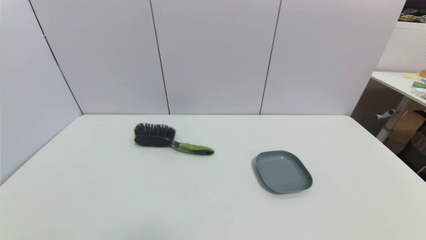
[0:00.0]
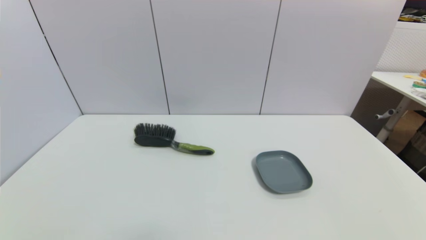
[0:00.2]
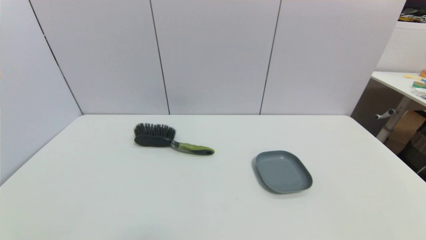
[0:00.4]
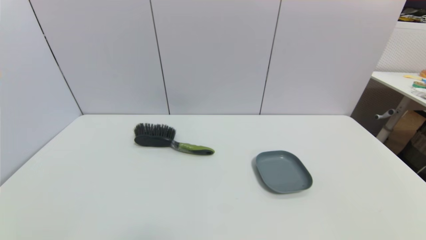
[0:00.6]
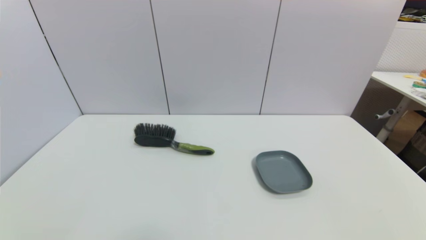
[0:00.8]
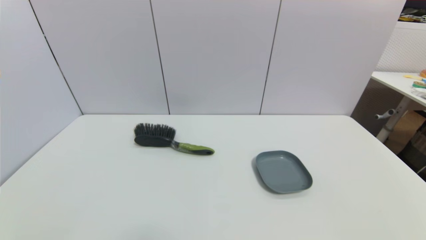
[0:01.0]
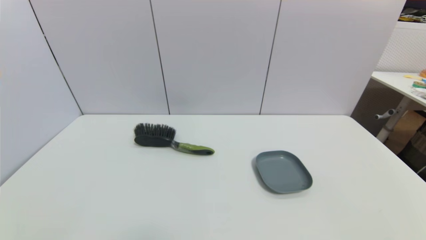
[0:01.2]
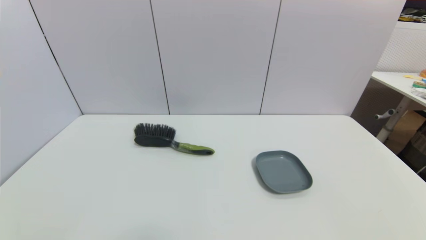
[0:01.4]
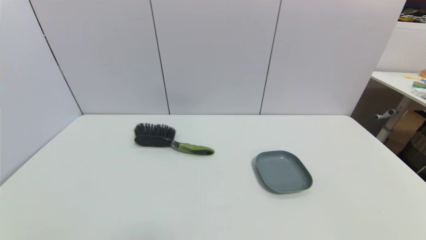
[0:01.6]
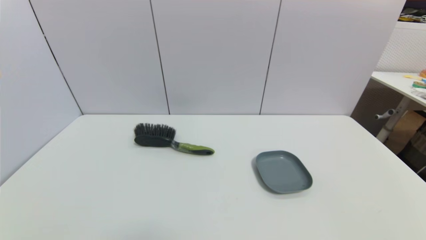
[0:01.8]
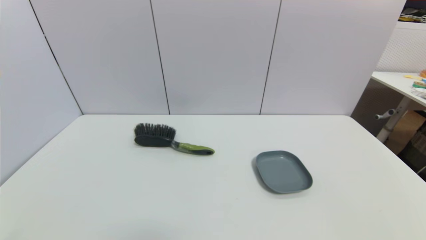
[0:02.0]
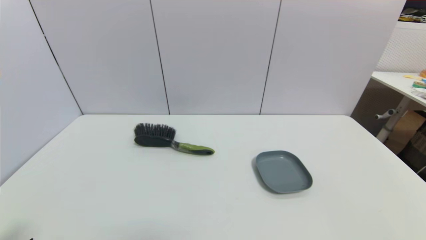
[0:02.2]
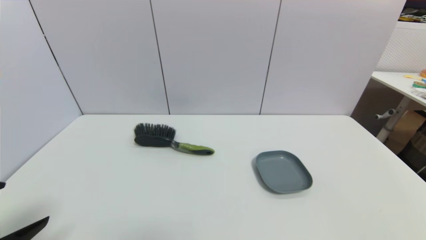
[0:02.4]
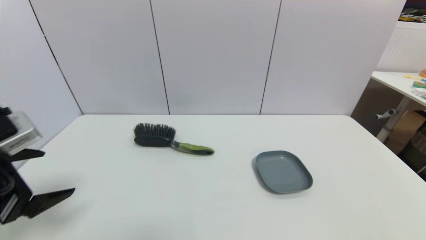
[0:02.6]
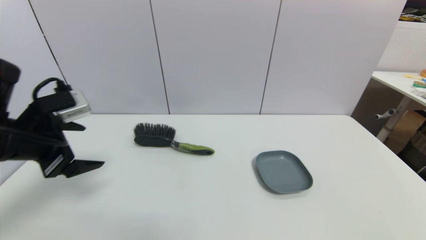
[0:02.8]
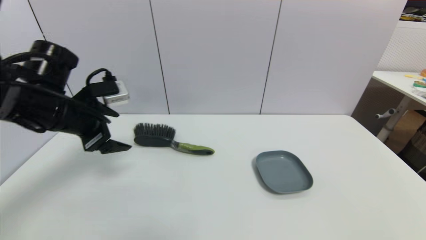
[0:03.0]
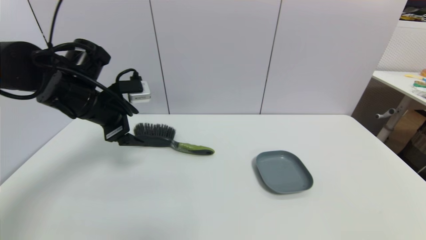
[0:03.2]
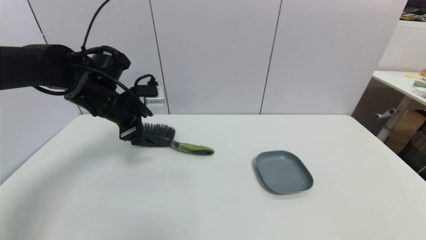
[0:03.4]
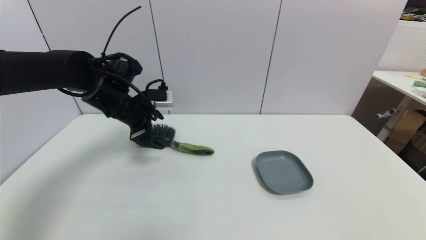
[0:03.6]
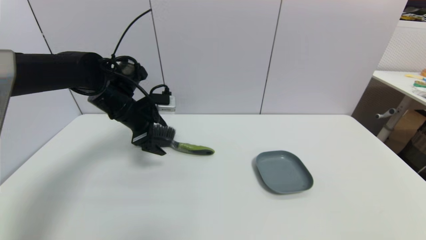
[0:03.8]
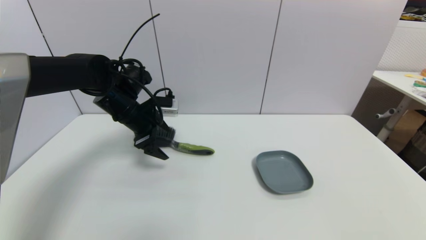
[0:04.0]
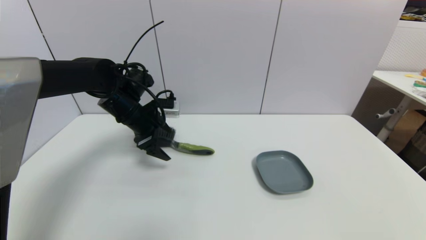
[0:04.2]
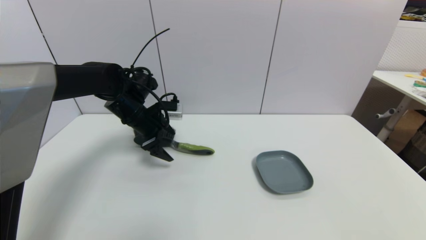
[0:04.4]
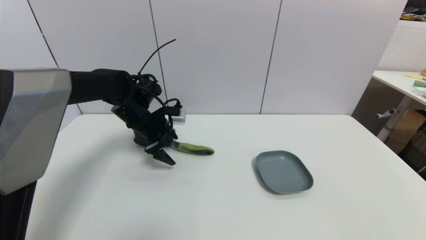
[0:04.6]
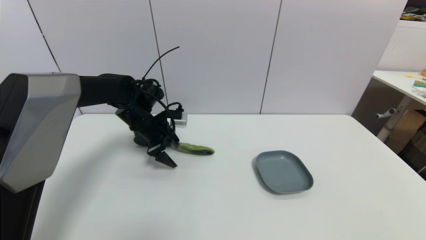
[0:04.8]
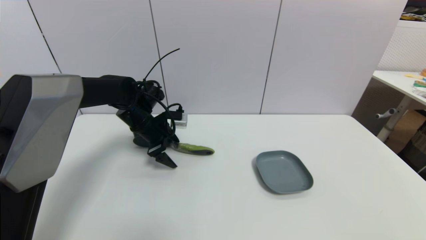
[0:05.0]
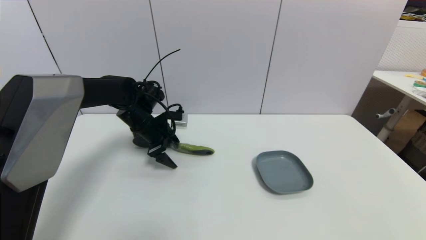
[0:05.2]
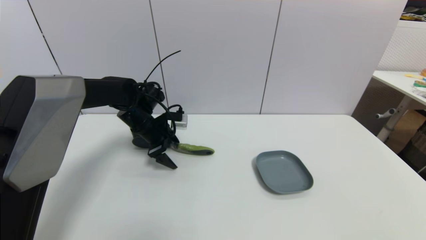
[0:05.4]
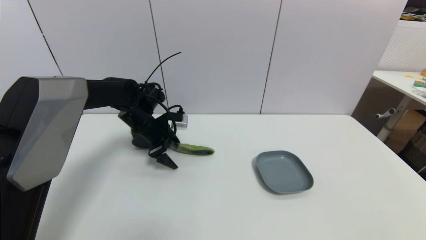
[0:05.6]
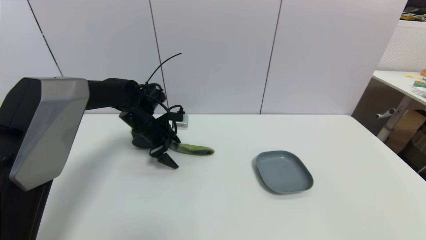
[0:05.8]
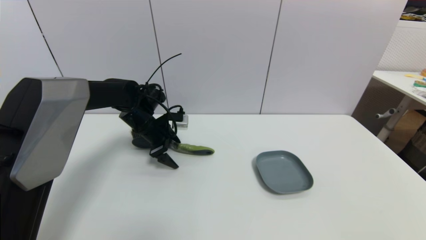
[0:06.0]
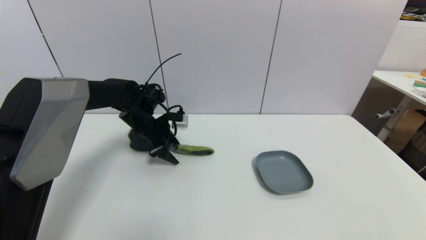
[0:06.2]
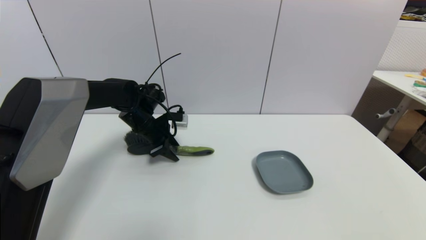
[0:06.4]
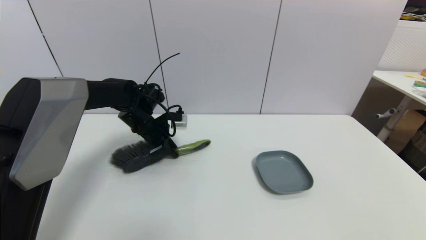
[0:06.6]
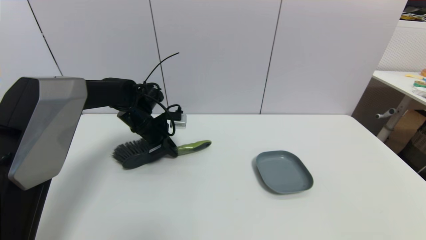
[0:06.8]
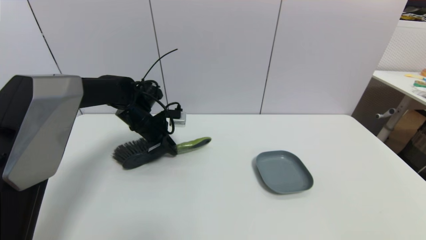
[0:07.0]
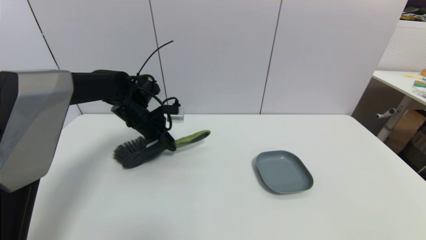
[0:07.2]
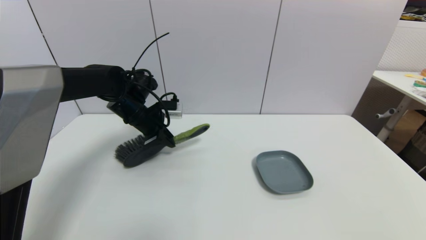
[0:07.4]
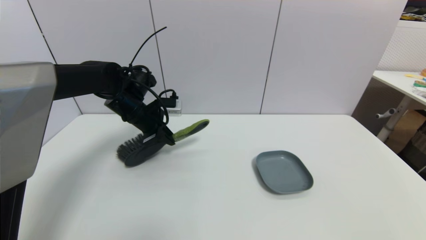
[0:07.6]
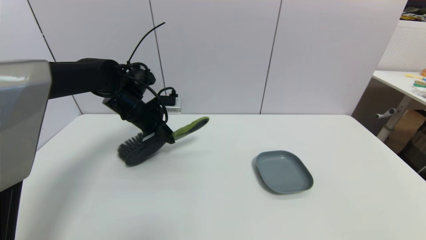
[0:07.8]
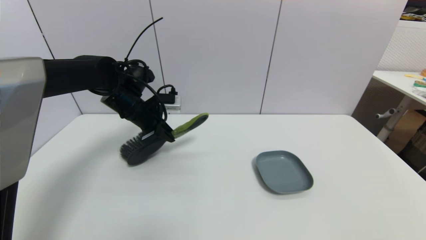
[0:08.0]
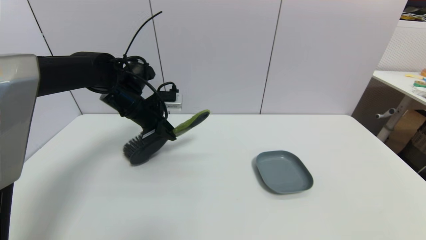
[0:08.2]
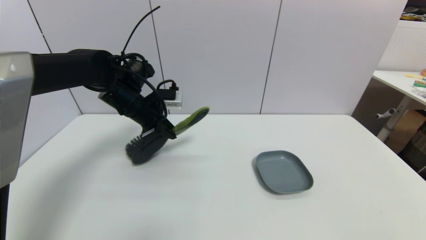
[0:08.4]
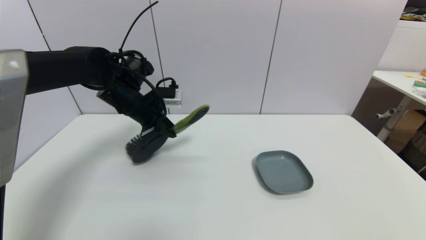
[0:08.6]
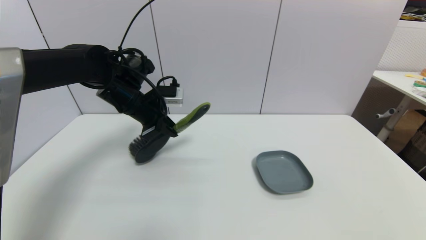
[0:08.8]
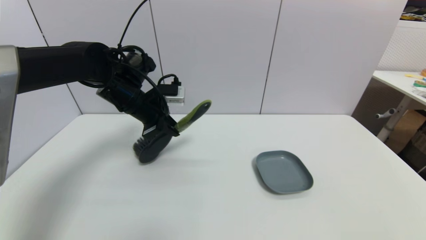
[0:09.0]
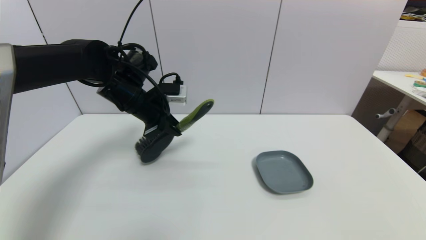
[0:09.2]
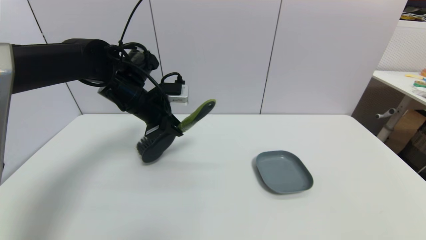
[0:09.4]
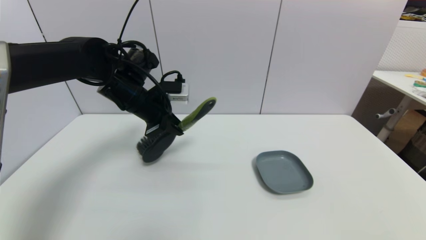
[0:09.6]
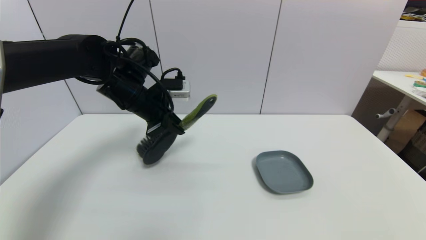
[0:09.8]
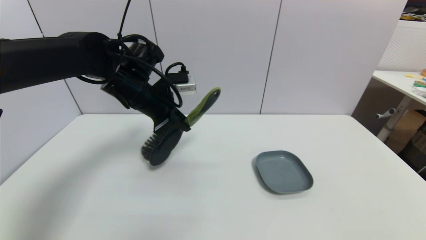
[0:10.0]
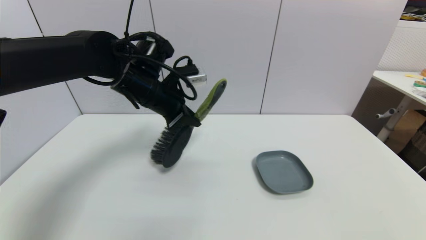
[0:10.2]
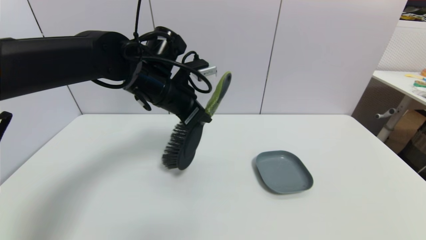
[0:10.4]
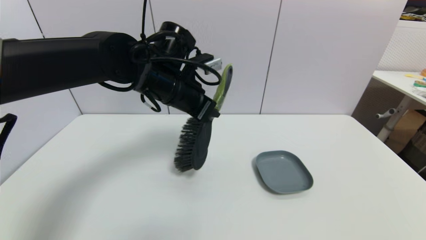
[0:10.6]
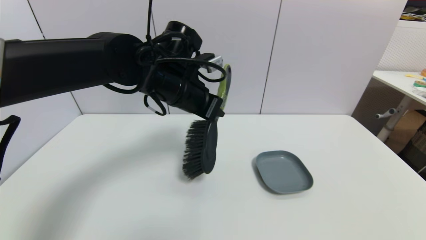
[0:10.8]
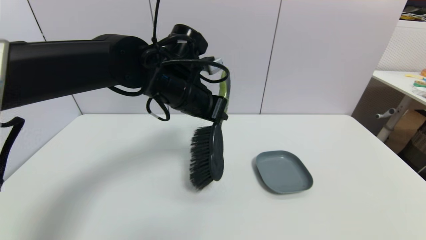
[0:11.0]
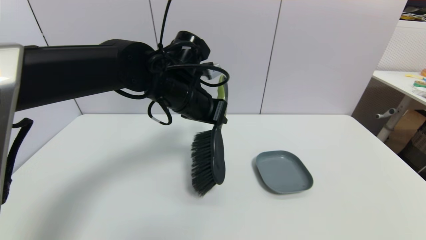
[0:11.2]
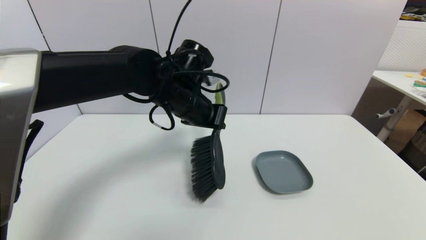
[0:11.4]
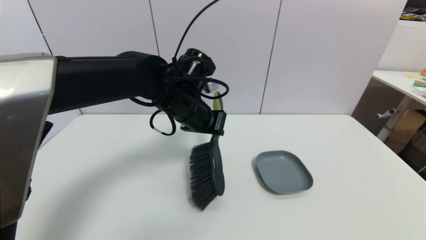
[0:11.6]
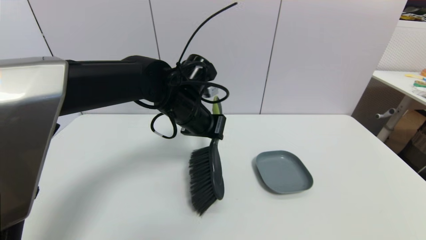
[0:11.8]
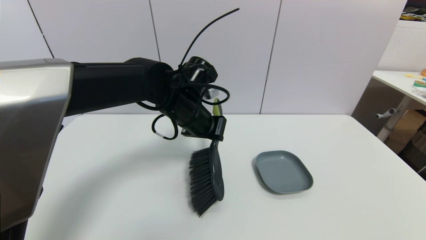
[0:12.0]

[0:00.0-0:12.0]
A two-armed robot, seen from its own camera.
Task of the whole recording: put the brush in the designated position.
Step, 0:02.4 to 0:06.8: Grasp the brush with left gripper.
0:00.0 to 0:01.6: Neither gripper changes place.
0:01.6 to 0:03.0: The left gripper moves forward and upward, approximately 35 cm.
0:03.0 to 0:04.4: The left gripper shifts roughly 15 cm forward, downward and to the right.
0:04.4 to 0:06.0: There are only small adjustments of the grippers.
0:06.0 to 0:07.6: The left gripper shifts roughly 5 cm upward, and closes its fingers.
0:07.6 to 0:09.0: The left gripper ends up some 5 cm from where it was.
0:09.0 to 0:10.4: The left gripper shifts approximately 10 cm to the right.
0:10.4 to 0:12.0: The left gripper ends up approximately 5 cm from where it was.

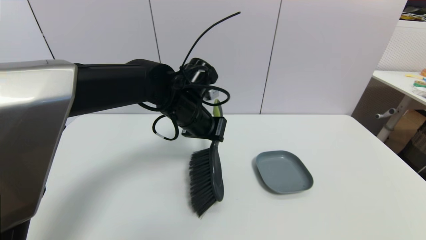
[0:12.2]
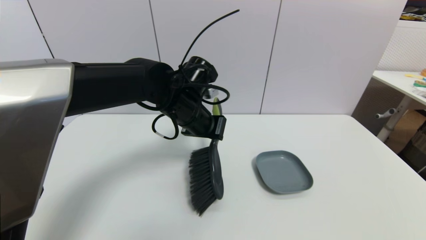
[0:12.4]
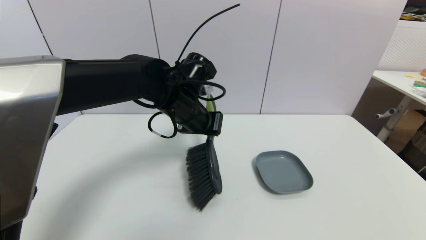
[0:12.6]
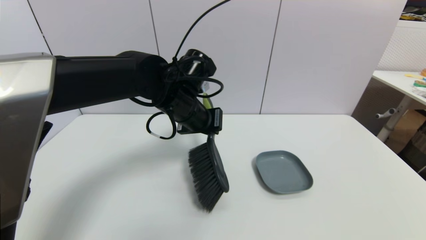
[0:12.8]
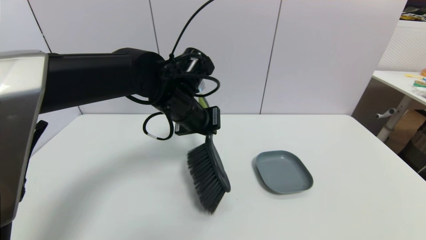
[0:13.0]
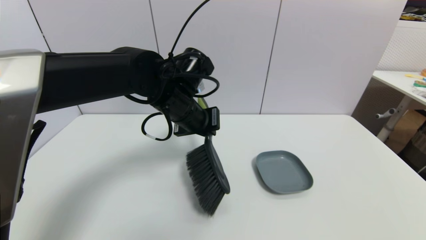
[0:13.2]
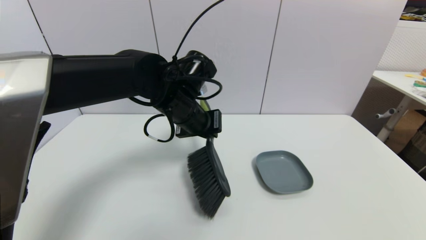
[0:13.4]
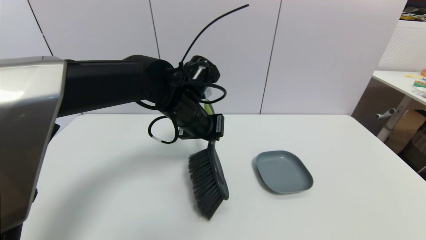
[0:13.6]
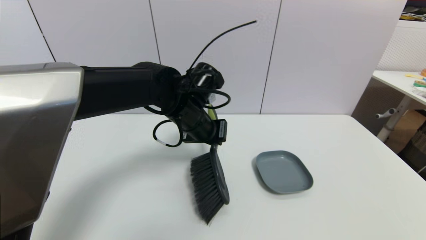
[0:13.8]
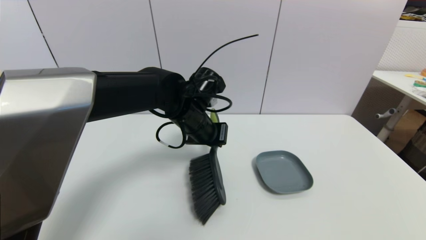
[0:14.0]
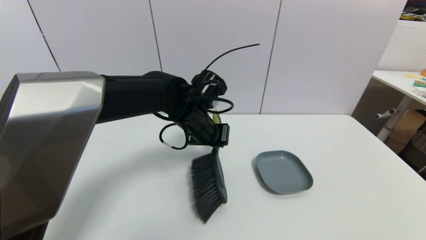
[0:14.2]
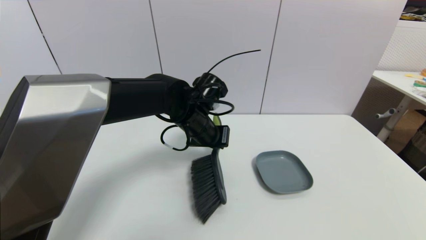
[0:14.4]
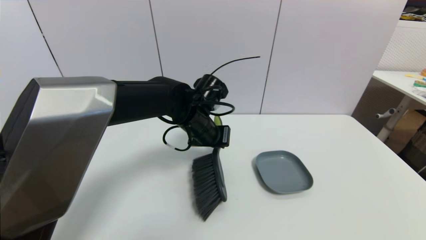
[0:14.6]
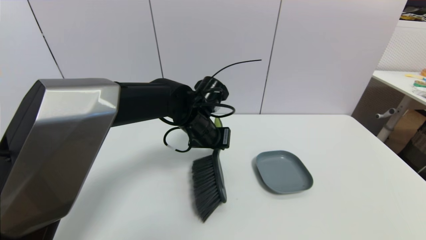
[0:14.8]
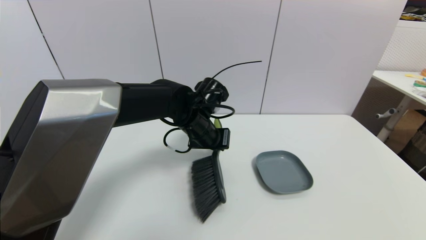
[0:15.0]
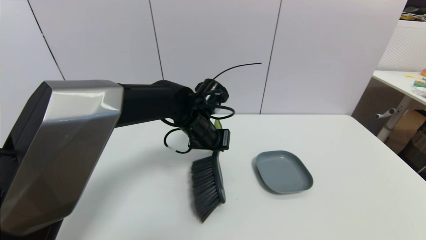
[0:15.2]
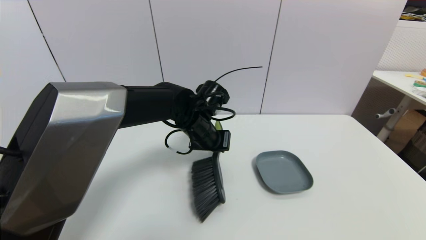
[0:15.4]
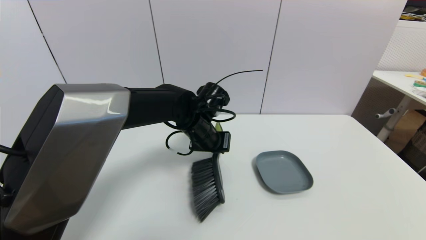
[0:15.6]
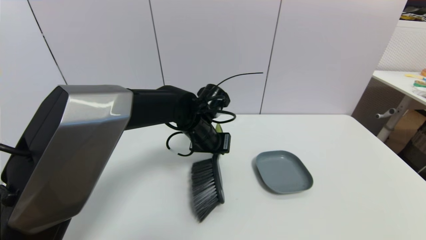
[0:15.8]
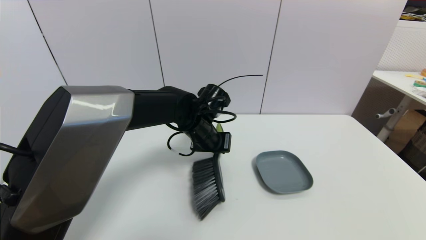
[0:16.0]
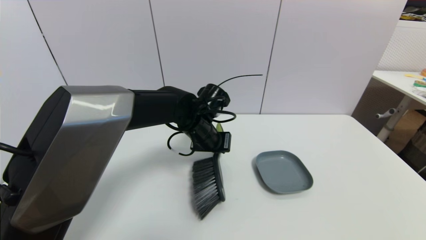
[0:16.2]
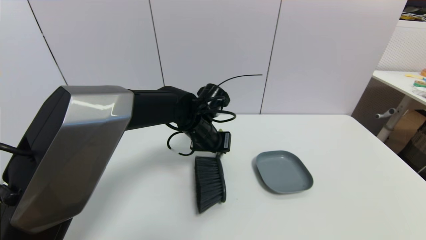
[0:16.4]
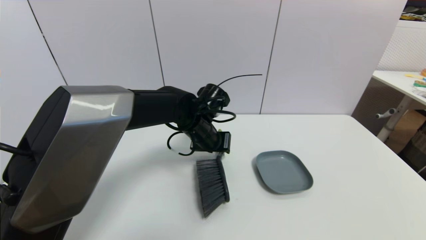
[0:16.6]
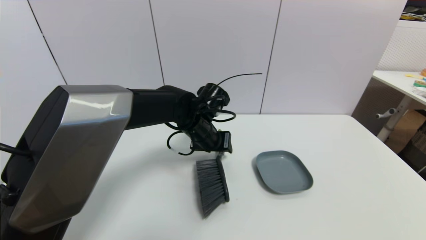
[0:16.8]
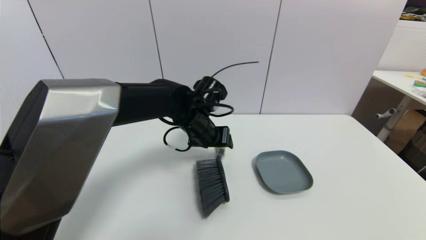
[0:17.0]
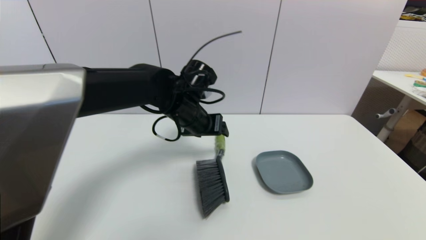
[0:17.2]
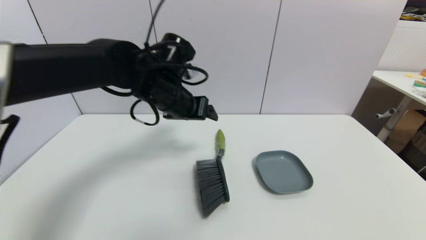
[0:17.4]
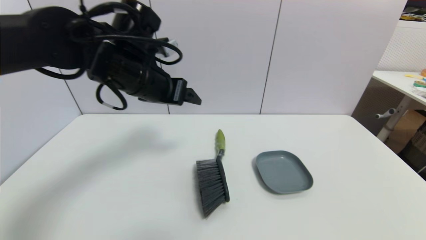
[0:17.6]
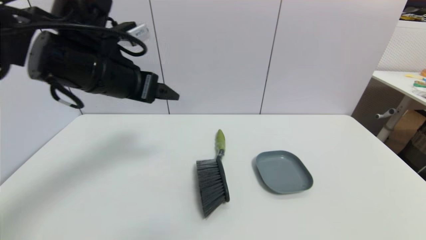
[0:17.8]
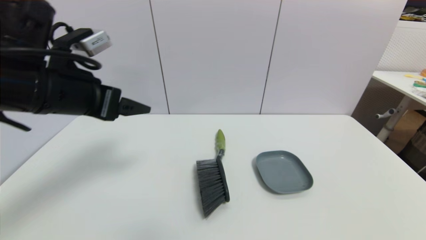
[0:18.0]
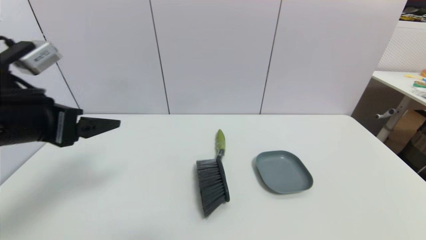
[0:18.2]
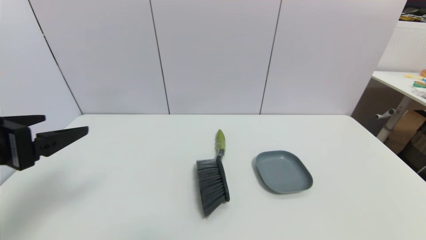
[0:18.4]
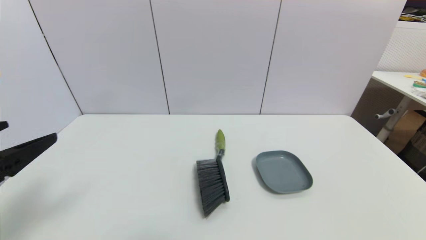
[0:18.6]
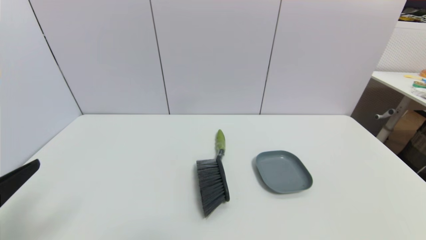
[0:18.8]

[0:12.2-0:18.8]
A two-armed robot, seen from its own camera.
Task of the whole recording: put the brush in the designated position.
Step, 0:12.2 to 0:16.6: Place the brush on the table with left gripper.
0:12.2 to 0:15.4: The grippers move only a little.
0:15.4 to 0:17.2: The left gripper goes some 5 cm upward, and opens up.
0:17.2 to 0:18.8: The left gripper travels backward and to the left by roughly 40 cm.
